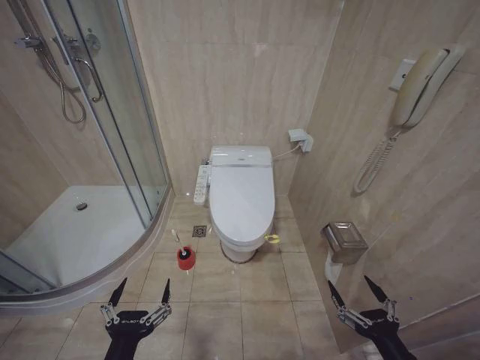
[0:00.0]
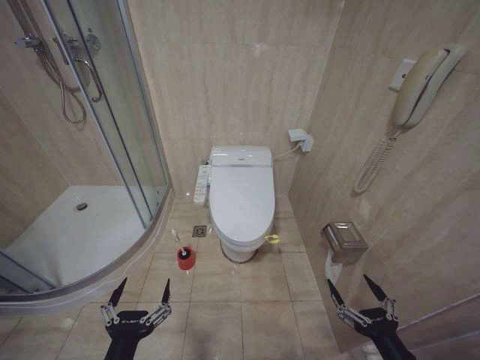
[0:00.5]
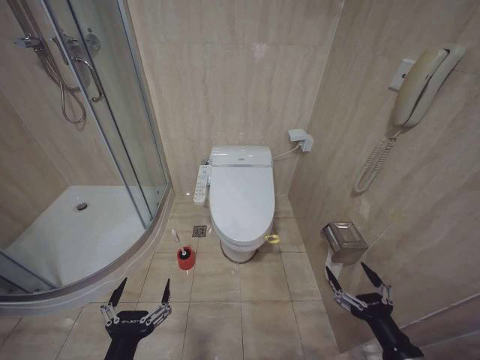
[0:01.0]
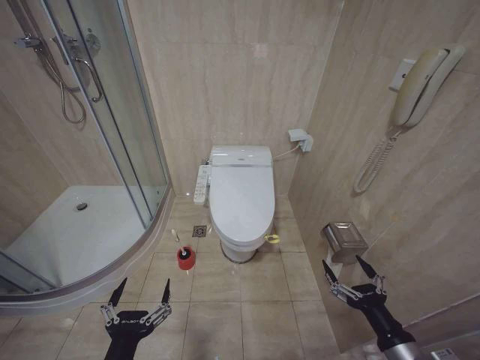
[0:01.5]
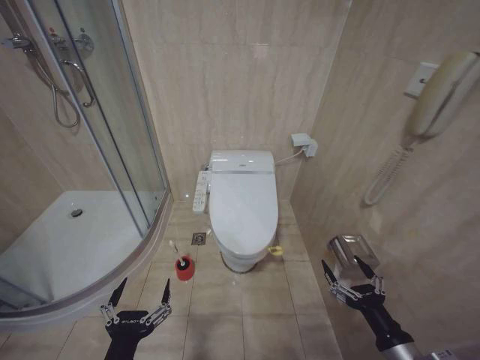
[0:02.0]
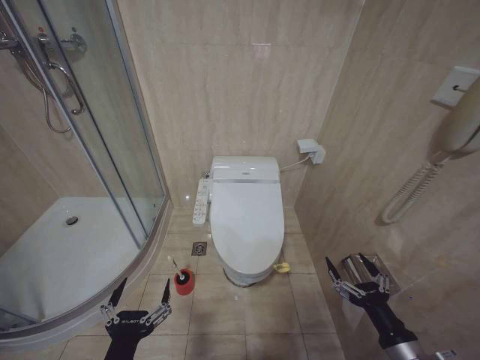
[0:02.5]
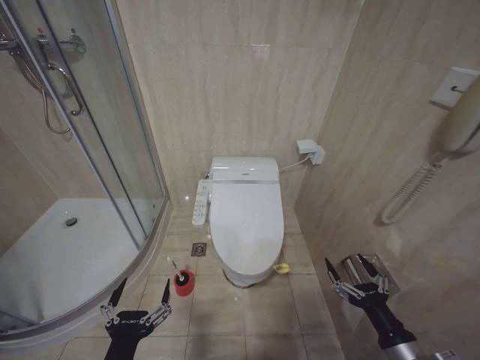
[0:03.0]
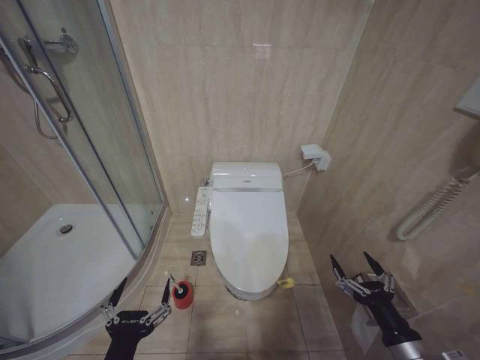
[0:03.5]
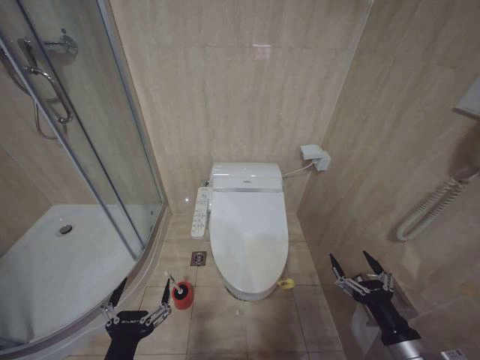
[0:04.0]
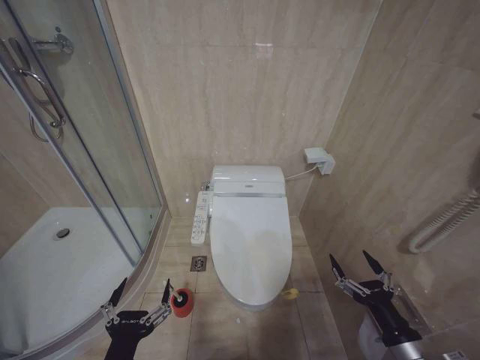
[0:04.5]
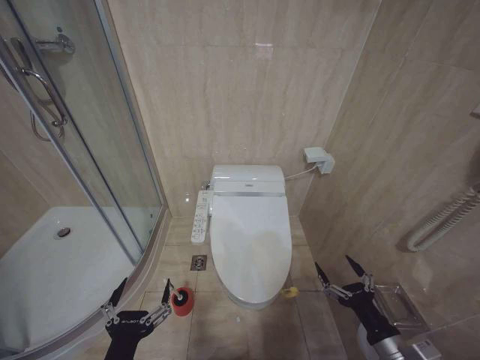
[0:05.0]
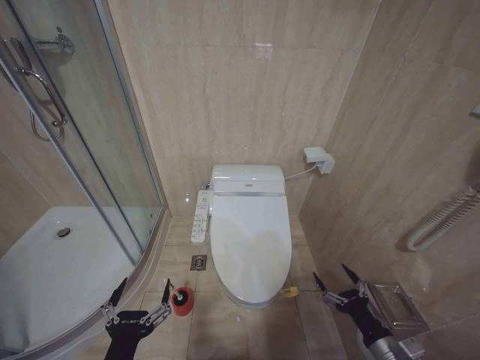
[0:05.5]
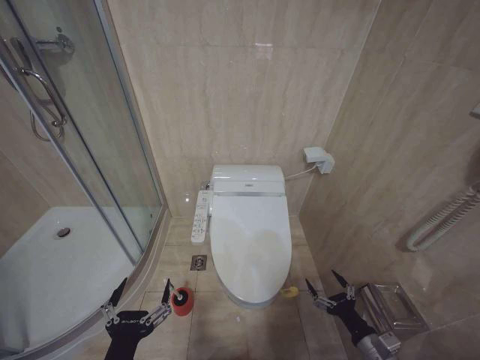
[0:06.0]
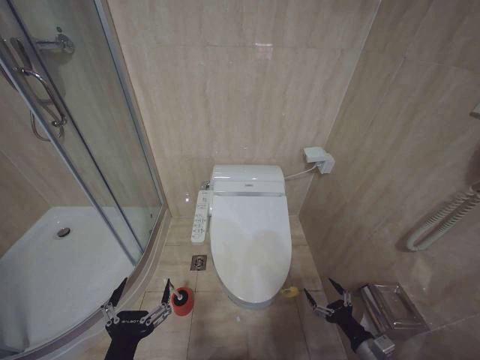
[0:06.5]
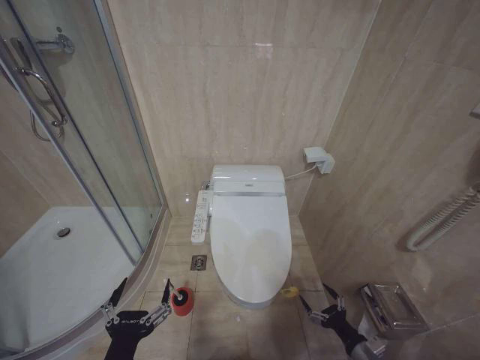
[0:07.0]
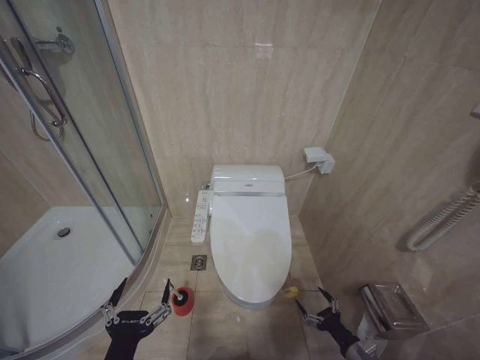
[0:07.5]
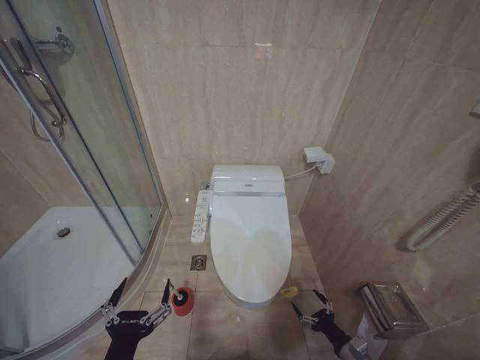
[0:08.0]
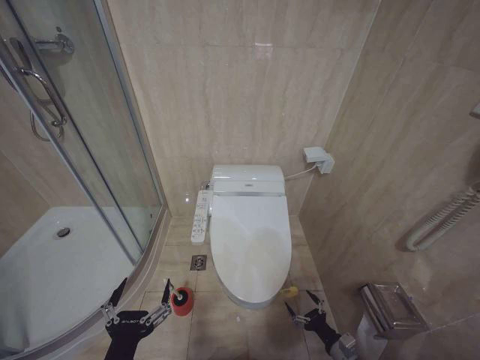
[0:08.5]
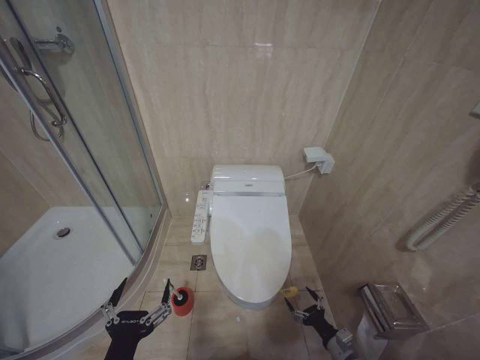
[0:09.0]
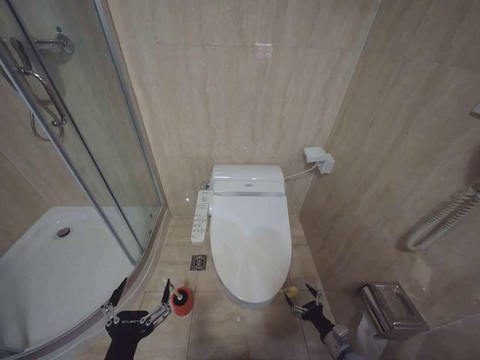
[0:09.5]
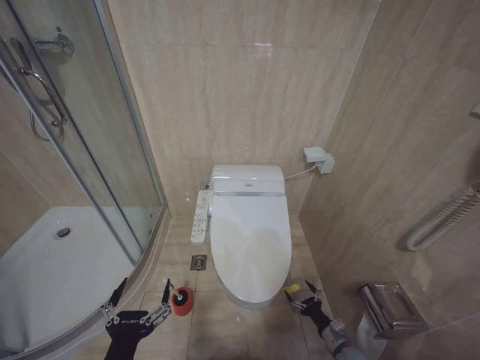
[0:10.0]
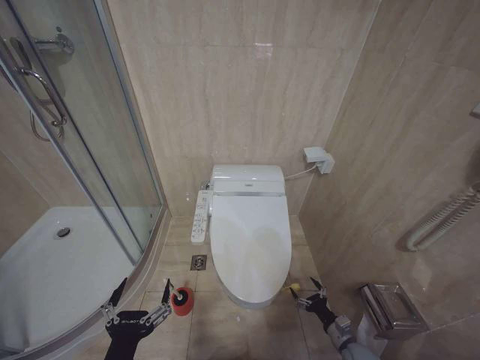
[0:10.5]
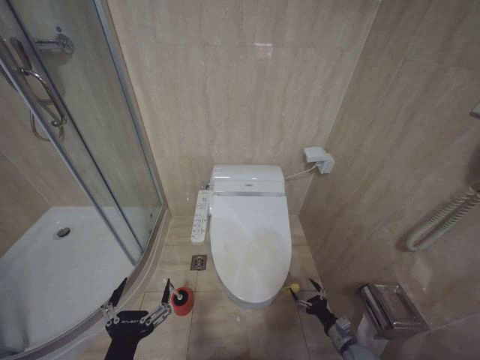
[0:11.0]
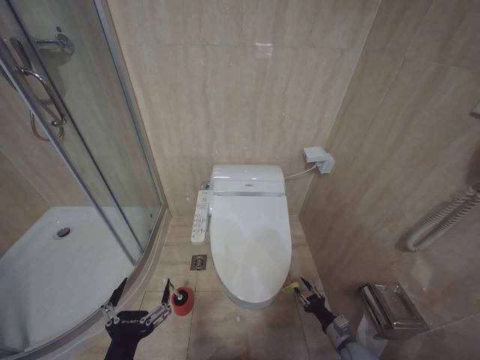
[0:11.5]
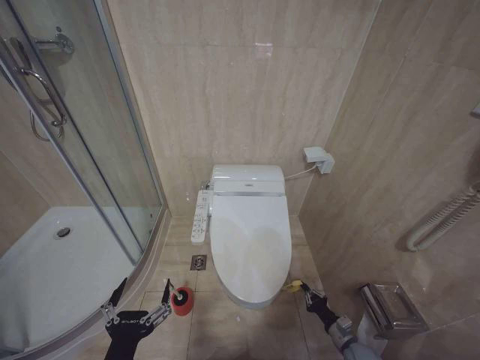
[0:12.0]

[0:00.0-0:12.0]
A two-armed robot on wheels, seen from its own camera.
Task of the whole recording: Open the toilet lid, clean the toilet bowl with a toilet brush, close the toilet lid, and flush.
0:02.0 to 0:04.0: Neither gripper changes place.
0:04.0 to 0:06.0: The right gripper is displaced downward by about 10 cm.
0:06.0 to 0:08.0: The right gripper goes roughly 10 cm downward.
0:08.0 to 0:10.0: The right gripper travels downward and forward by roughly 10 cm.

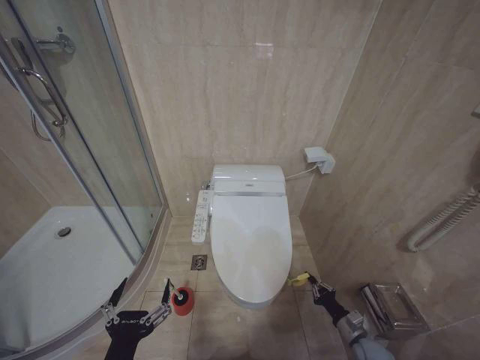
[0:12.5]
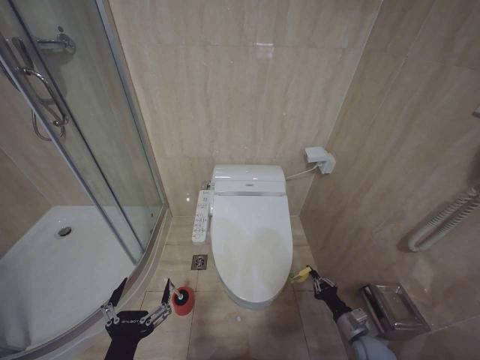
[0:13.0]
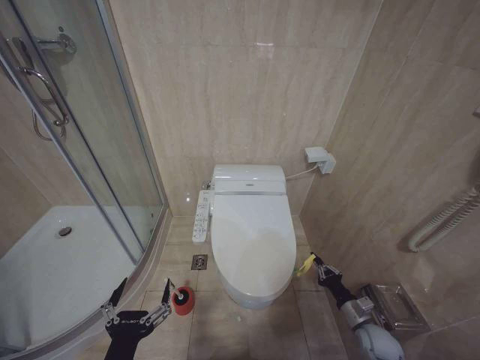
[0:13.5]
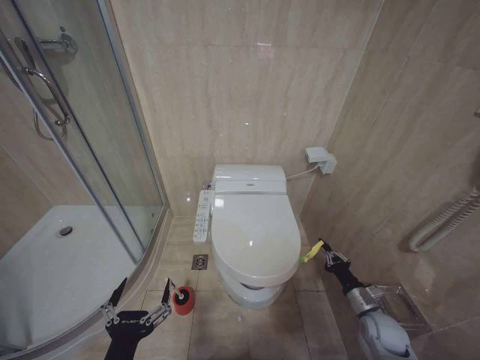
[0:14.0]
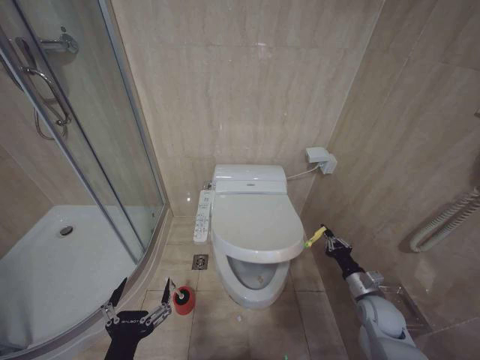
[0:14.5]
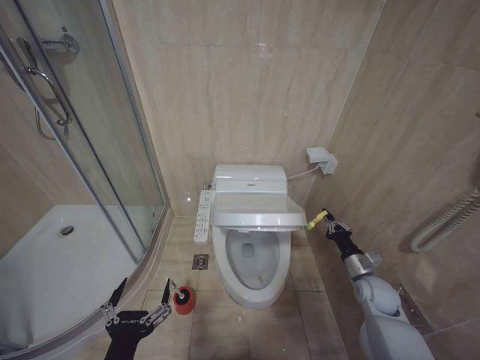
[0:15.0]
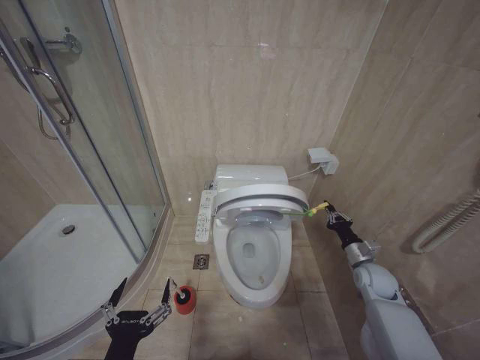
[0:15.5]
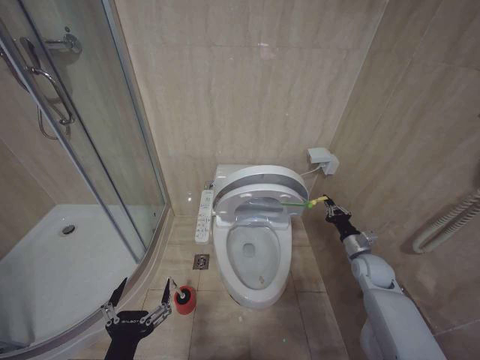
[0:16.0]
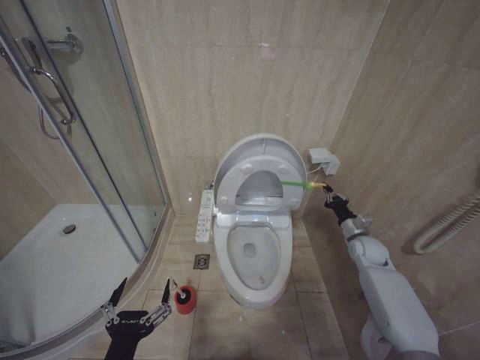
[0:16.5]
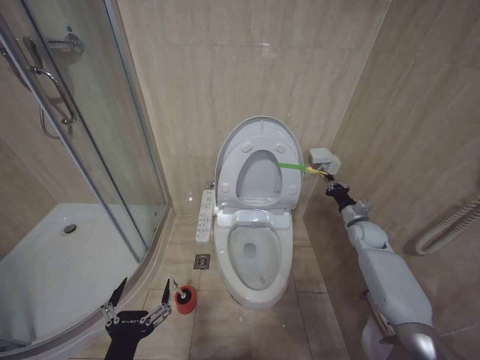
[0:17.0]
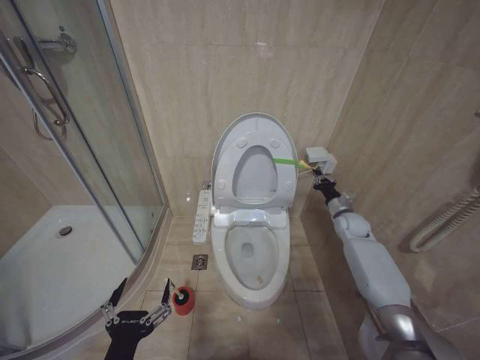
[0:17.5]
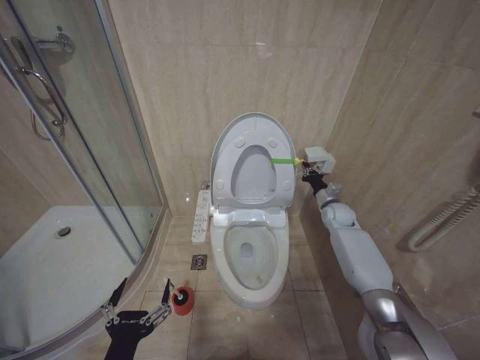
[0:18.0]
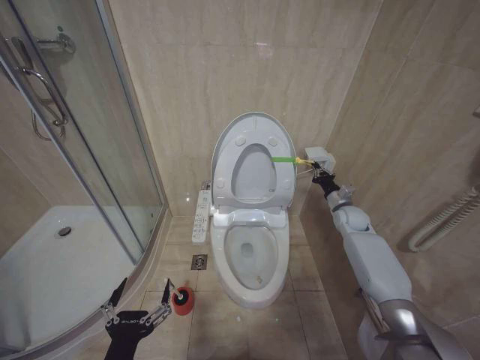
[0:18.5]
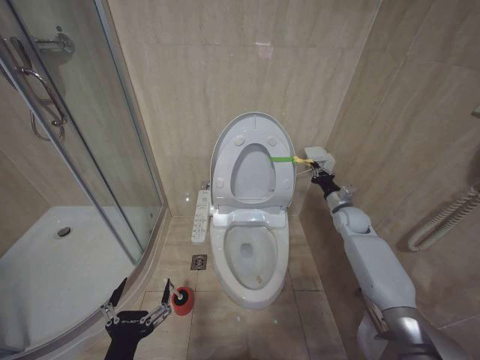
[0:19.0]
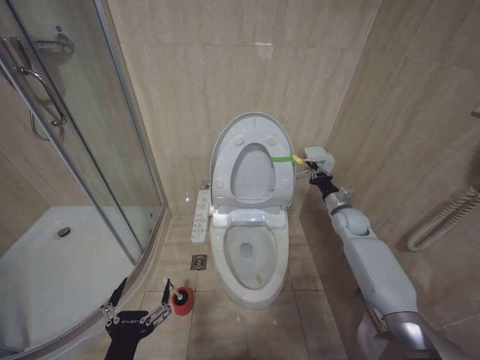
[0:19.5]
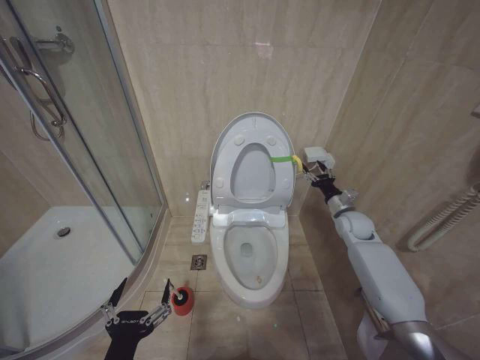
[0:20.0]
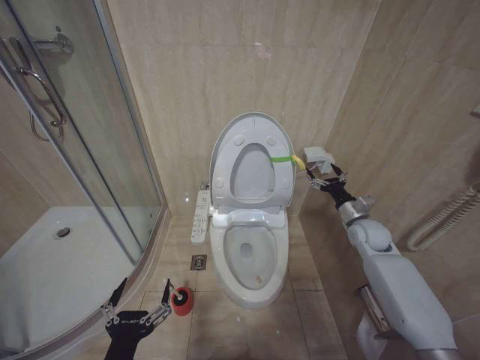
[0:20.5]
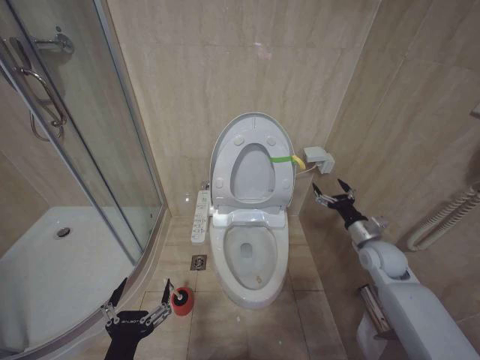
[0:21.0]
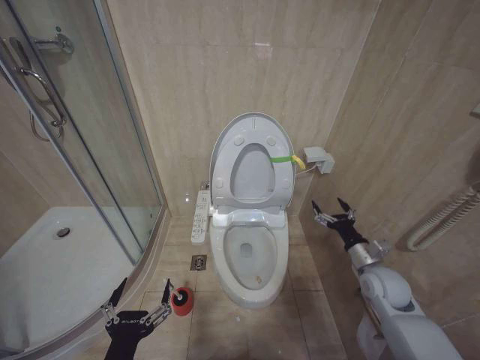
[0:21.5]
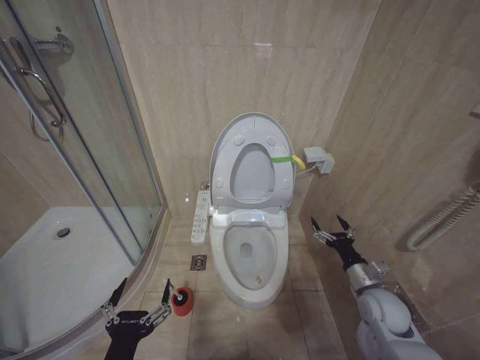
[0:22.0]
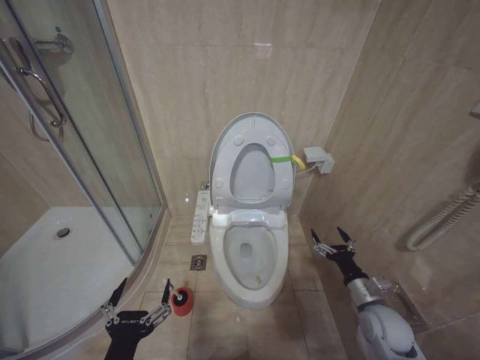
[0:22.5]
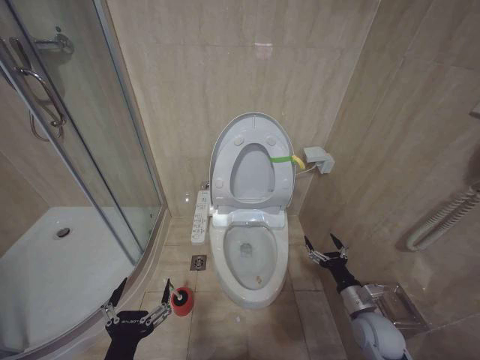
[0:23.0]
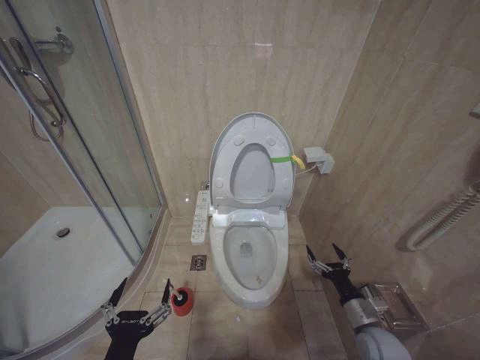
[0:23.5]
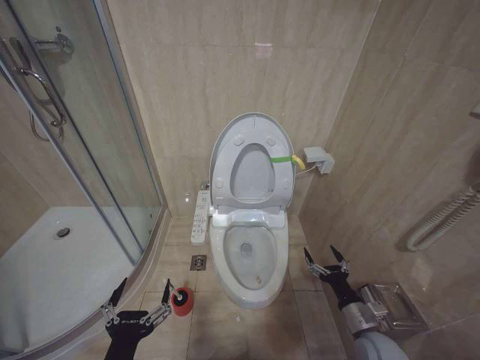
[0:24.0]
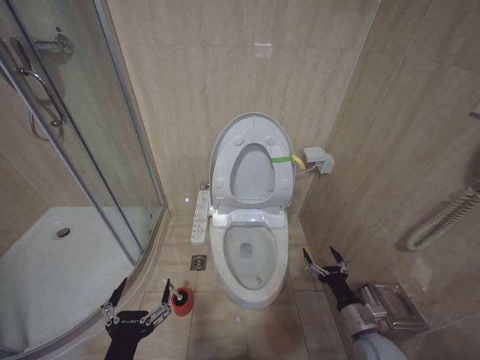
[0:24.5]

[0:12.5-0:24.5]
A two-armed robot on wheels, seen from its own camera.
Task of the whole recording: Open the toilet lid, clean the toilet bowl with a toilet brush, close the toilet lid, and flush.
0:12.5 to 0:14.5: The right gripper goes roughly 15 cm upward and forward.
0:14.5 to 0:16.5: The right gripper travels forward and upward by roughly 15 cm.
0:16.5 to 0:18.5: The right gripper goes about 10 cm forward and upward.
0:18.5 to 0:20.5: The right gripper shifts some 10 cm backward, and opens up.
0:20.5 to 0:22.5: The right gripper is displaced backward and downward by approximately 20 cm.
0:22.5 to 0:24.5: The right gripper goes roughly 5 cm backward.

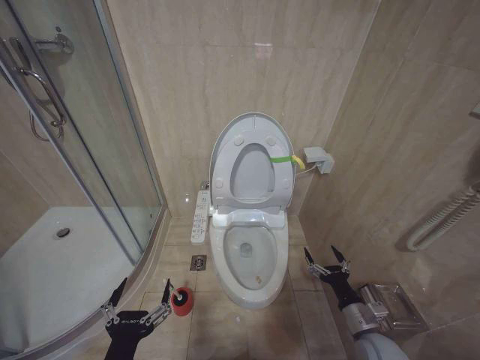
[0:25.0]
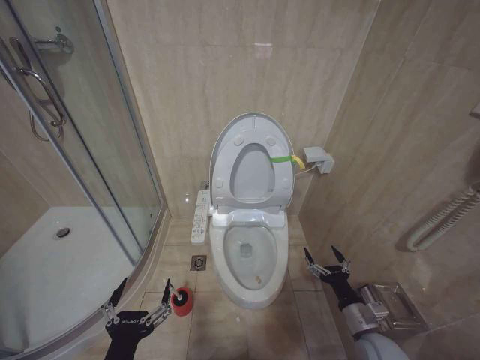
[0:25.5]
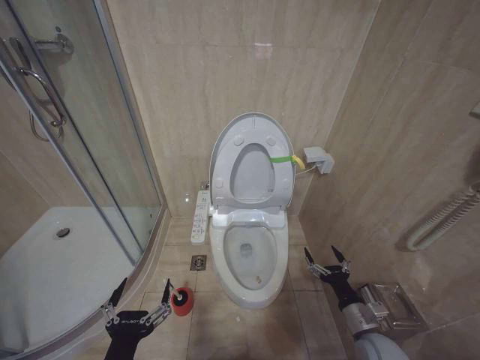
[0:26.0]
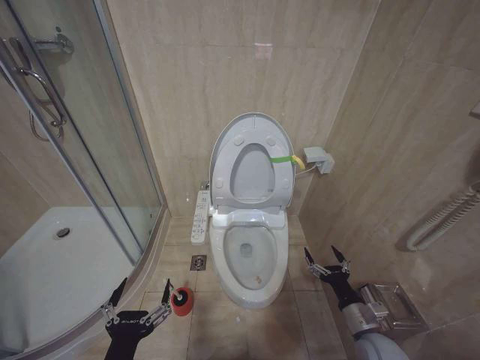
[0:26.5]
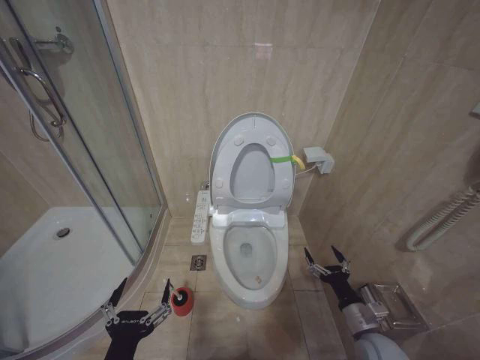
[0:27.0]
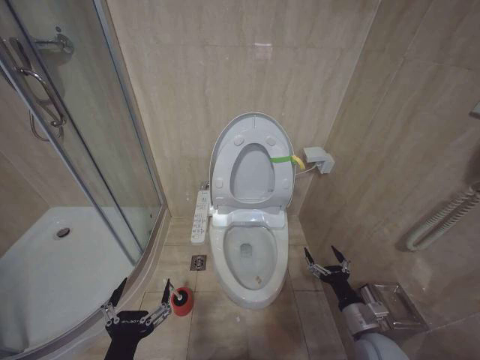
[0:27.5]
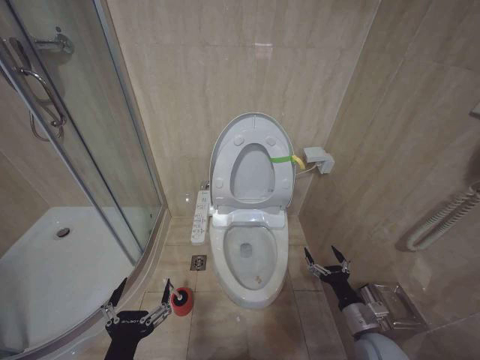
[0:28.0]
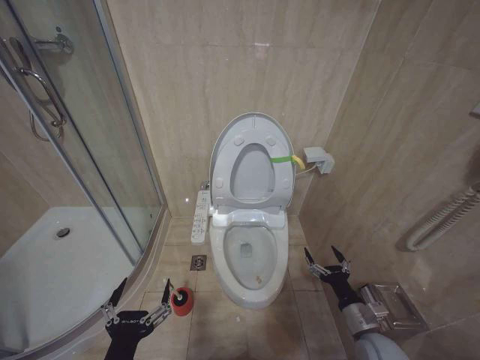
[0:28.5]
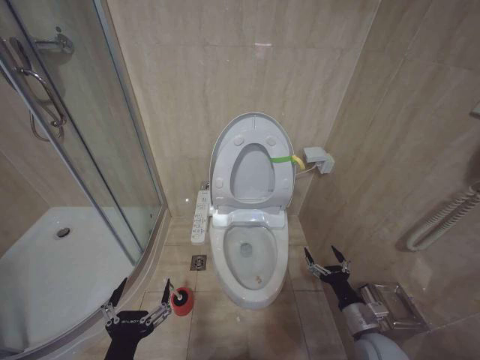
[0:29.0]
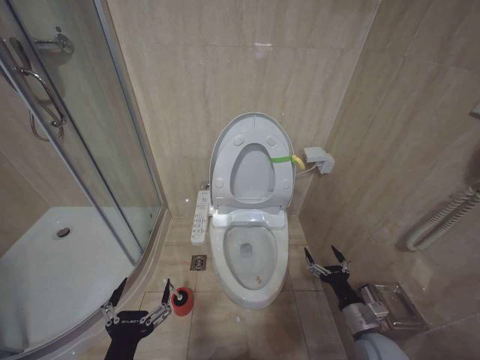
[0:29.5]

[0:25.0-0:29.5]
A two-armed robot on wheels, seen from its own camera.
Task of the whole recording: Open the toilet lid, clean the toilet bowl with a toilet brush, close the toilet lid, and flush.
0:25.0 to 0:29.5: The two grippers keep their place.
